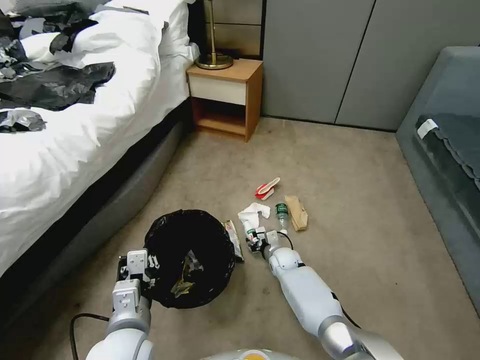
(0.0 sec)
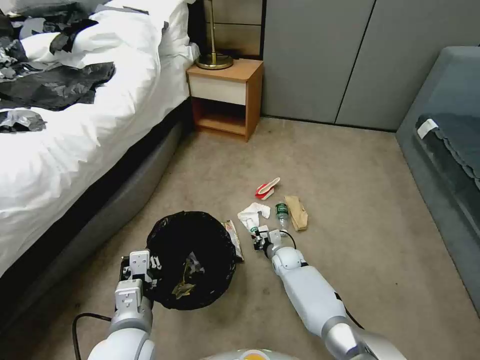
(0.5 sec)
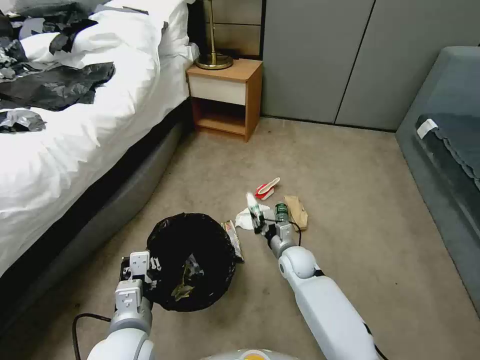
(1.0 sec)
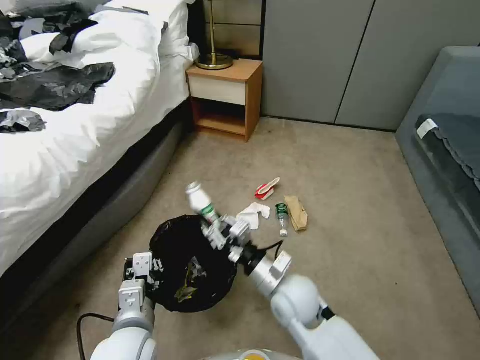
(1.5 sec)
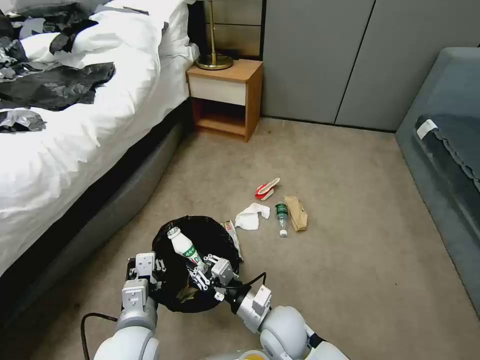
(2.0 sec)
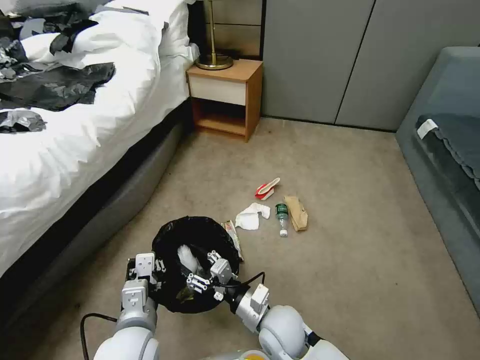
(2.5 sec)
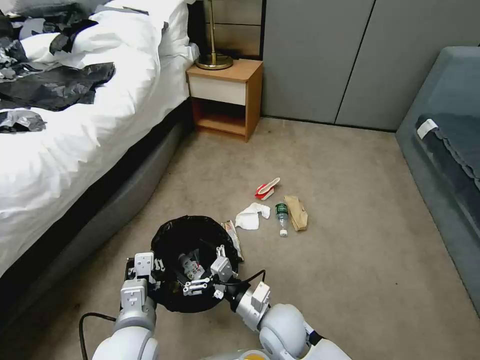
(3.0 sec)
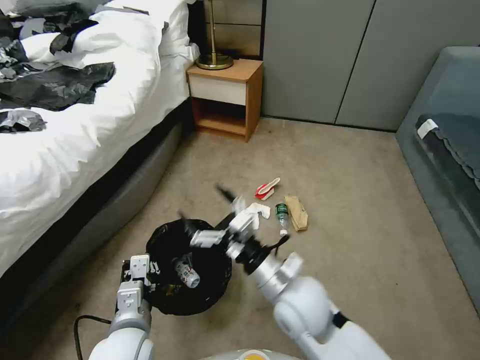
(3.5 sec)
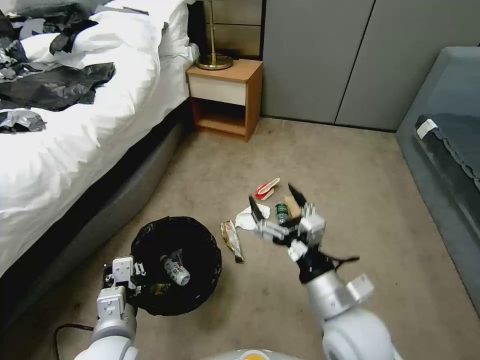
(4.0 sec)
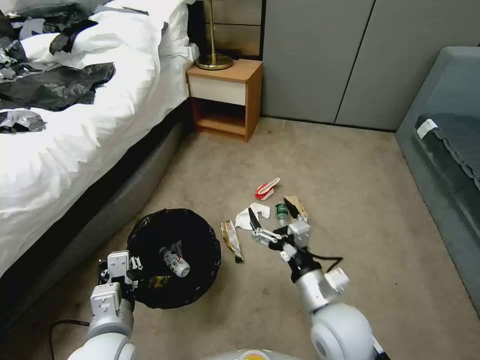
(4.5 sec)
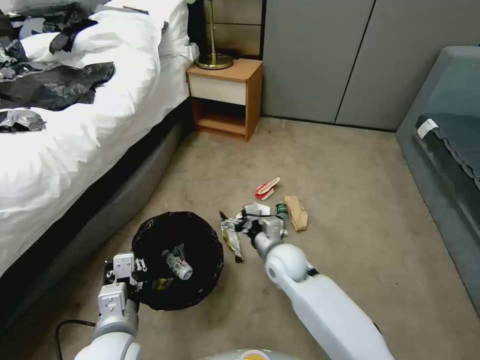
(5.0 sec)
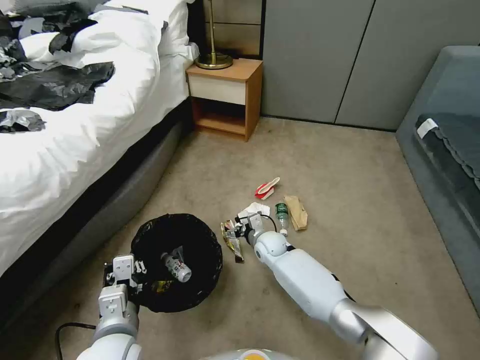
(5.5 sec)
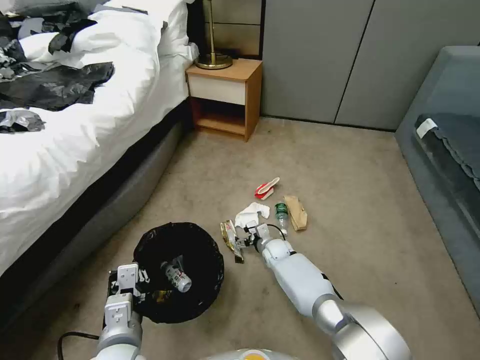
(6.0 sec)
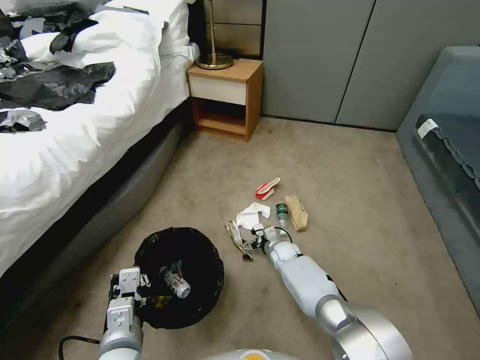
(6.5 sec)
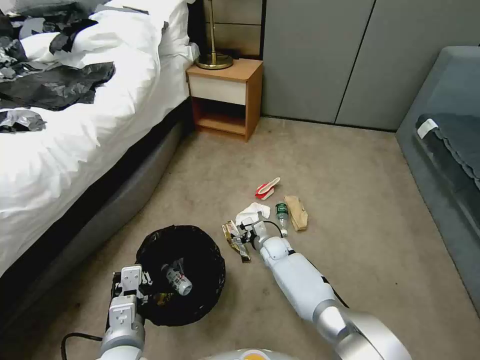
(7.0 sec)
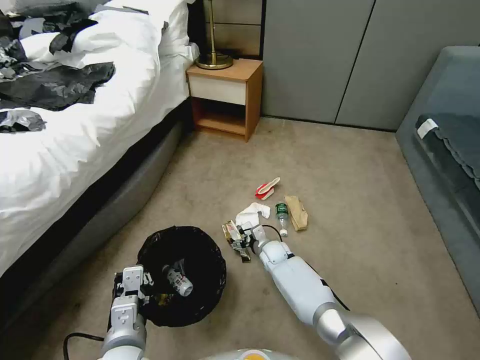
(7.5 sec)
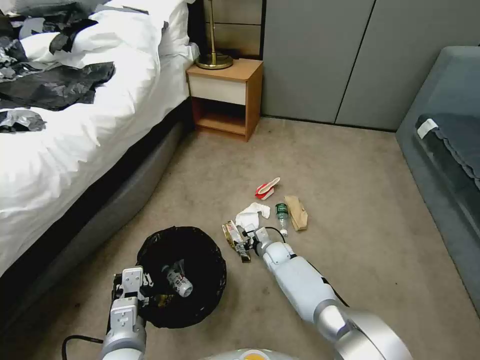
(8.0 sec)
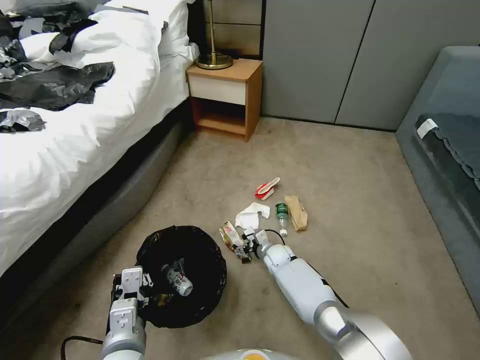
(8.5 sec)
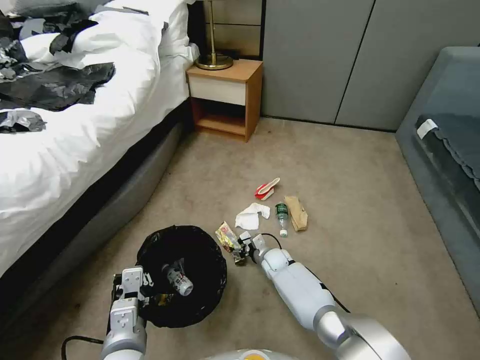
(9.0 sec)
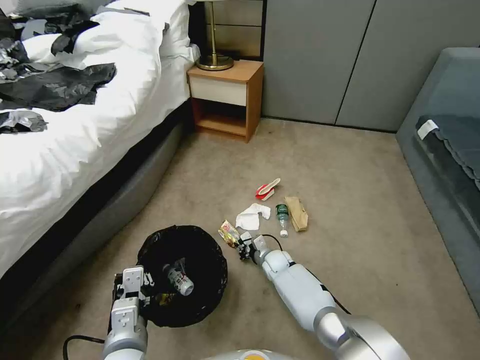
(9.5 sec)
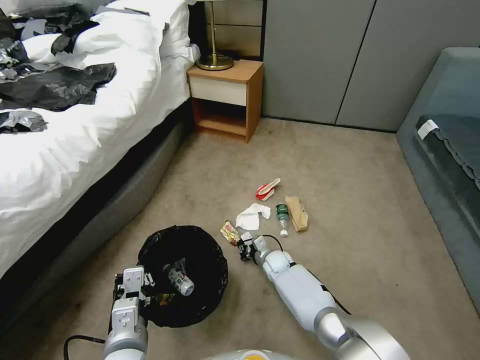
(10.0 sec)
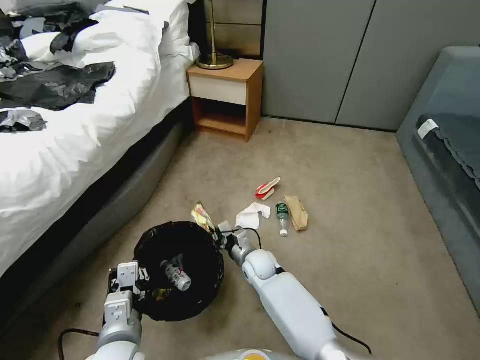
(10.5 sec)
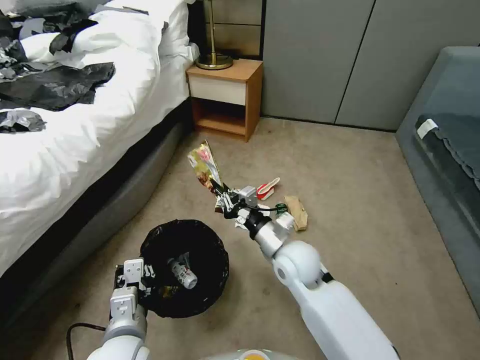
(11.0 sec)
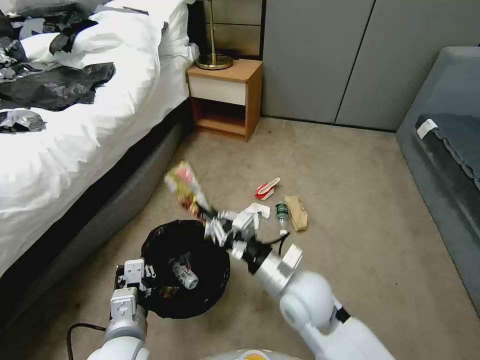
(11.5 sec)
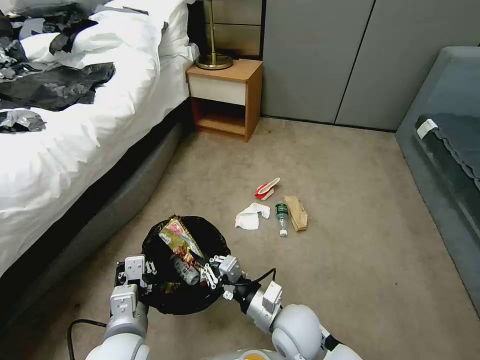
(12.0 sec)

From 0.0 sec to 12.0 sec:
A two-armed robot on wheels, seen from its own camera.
Task of the whole recording: Pick up the trash bin, then pick up the garbage from the floor and place it into the trash bin.
From 0.0 sec to 2.0 sec: The right gripper heads backward and upward, covering about 25 cm, and closes up.
From 2.0 sec to 4.0 sec: The right gripper moves upward and to the right, some 15 cm, and opens its fingers.
From 4.0 sec to 6.0 sec: The right gripper heads forward and downward, covering about 40 cm.
From 6.0 sec to 8.0 sec: The grippers move only a little.
From 8.0 sec to 10.0 sec: The right gripper closes.
From 10.0 sec to 12.0 sec: The right gripper goes approximately 30 cm backward and upward.

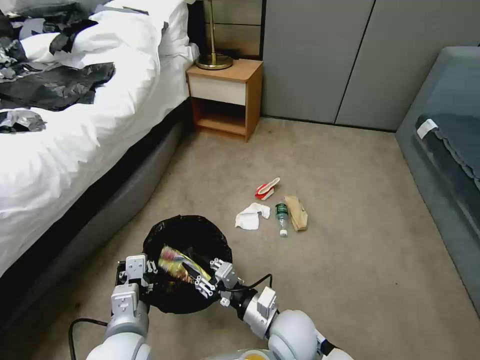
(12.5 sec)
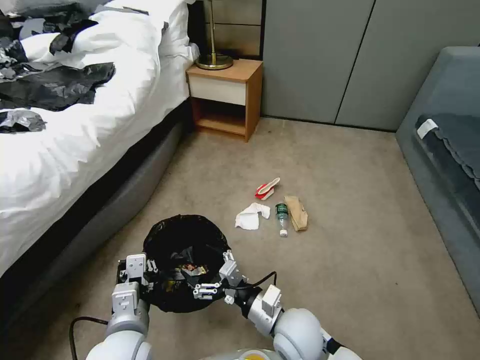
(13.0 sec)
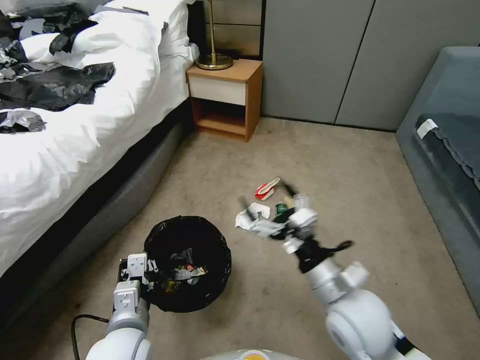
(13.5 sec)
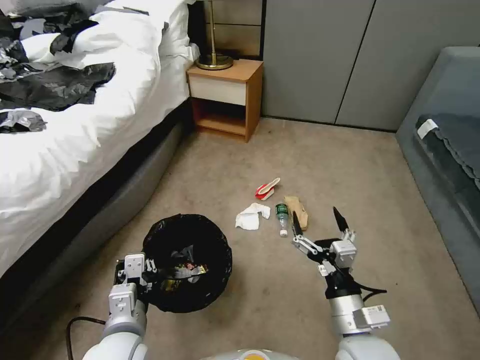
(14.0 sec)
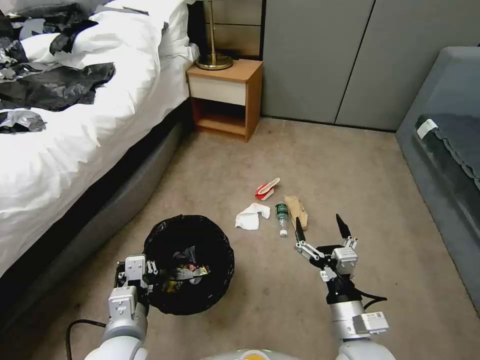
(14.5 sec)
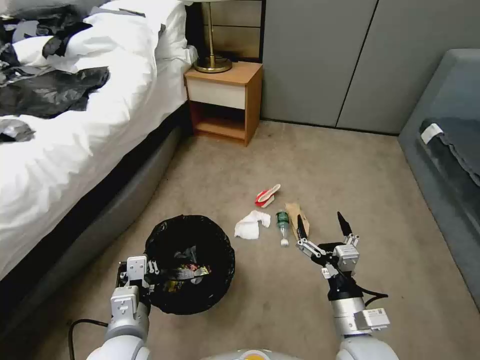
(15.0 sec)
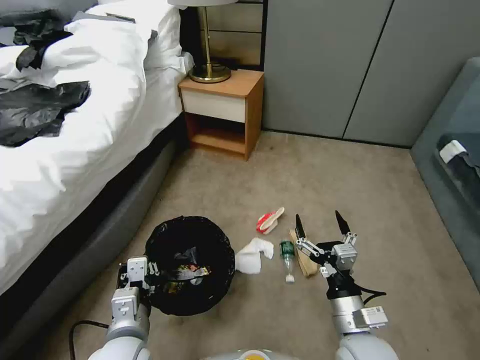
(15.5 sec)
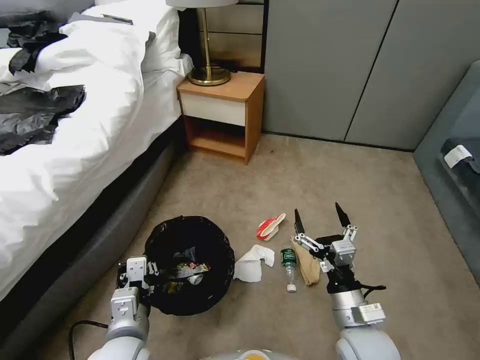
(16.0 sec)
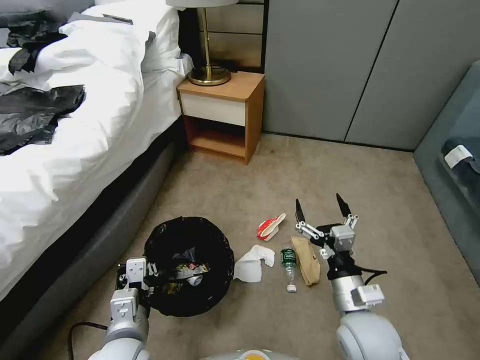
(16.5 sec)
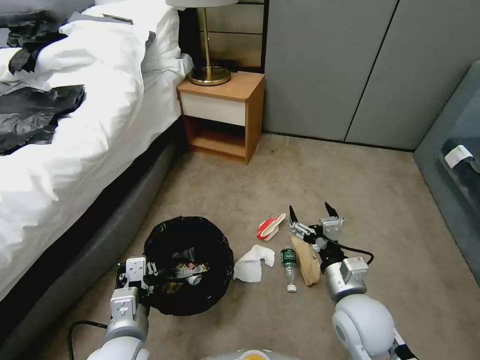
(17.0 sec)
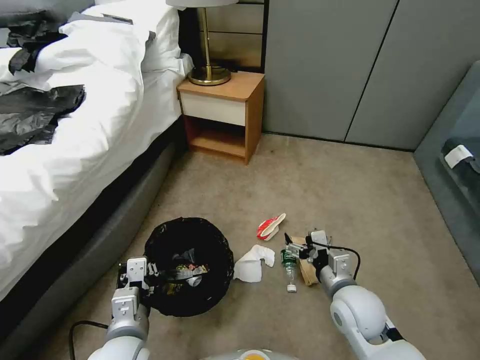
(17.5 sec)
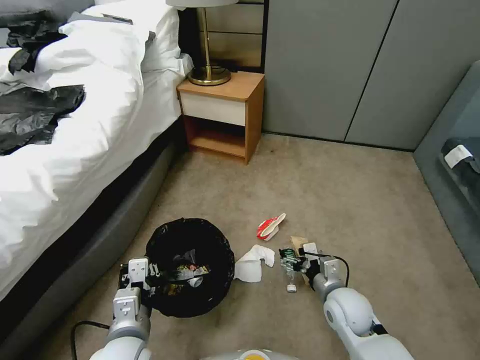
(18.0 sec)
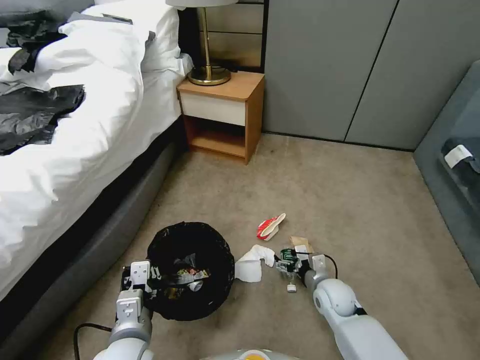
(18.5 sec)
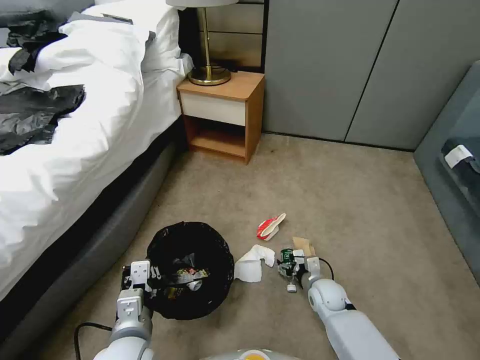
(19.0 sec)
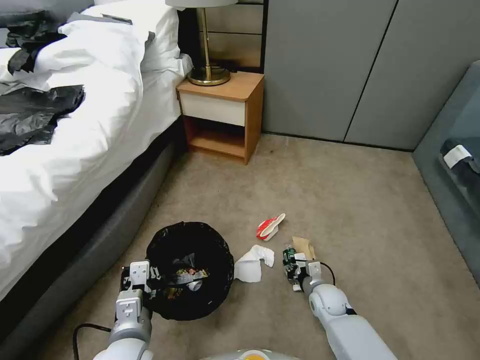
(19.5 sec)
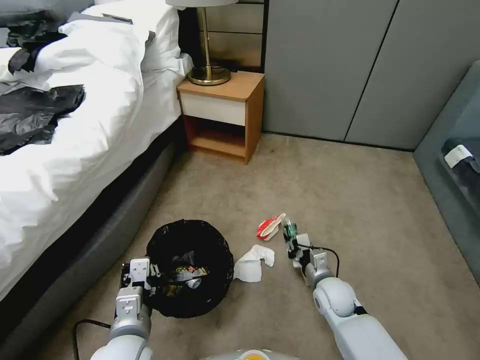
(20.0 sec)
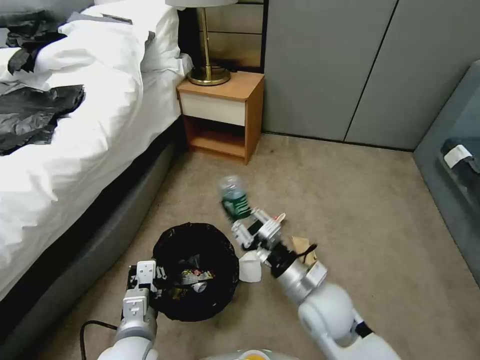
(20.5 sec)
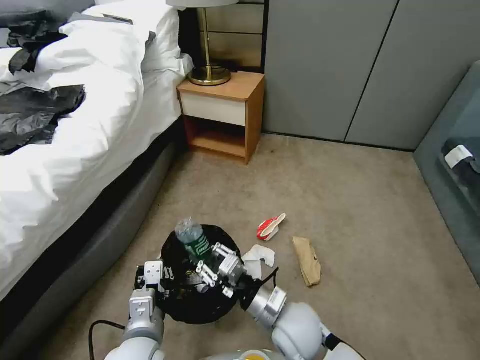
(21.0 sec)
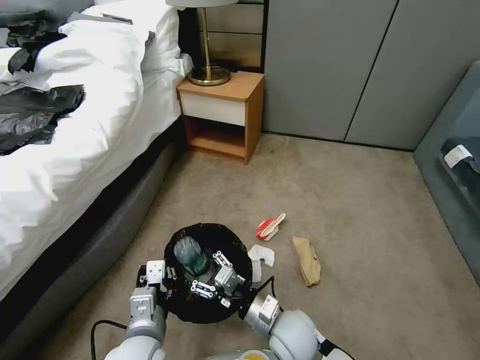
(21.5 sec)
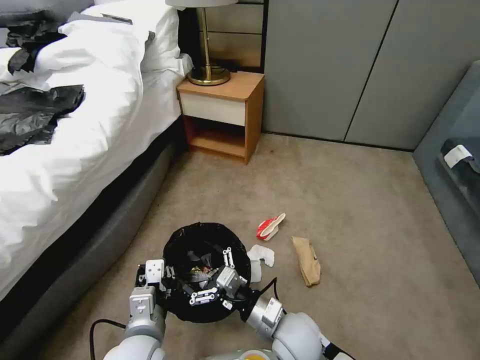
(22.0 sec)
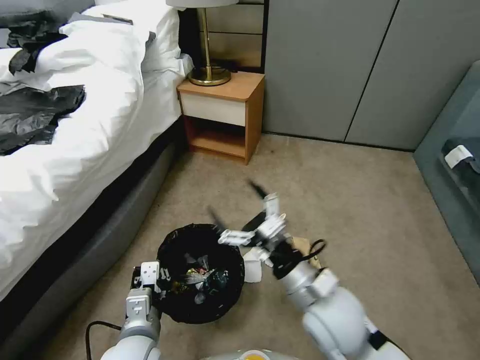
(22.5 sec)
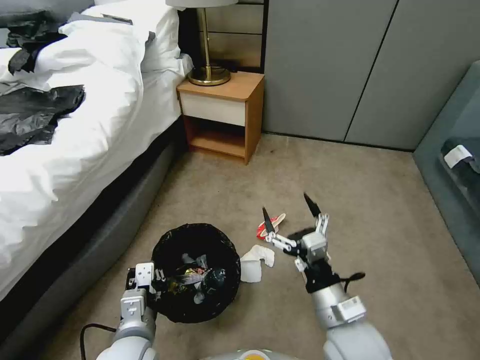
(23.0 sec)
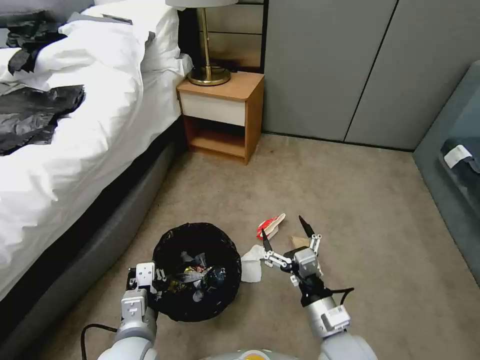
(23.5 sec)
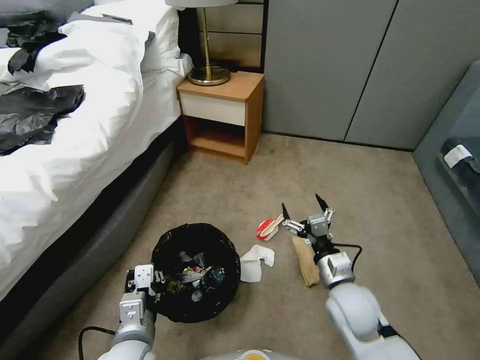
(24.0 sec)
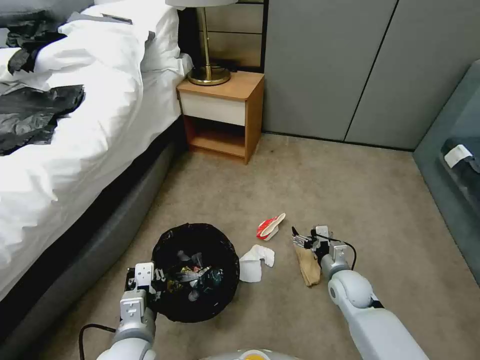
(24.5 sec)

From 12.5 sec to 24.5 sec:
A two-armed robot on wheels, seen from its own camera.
Task of the whole recording: Pick up the trash bin, then pick up the garbage from the floor and place it into the trash bin.
From 12.5 sec to 14.5 sec: The right gripper moves to the right and backward, approximately 15 cm, and opens up.
From 16.5 sec to 18.5 sec: The right gripper shifts approximately 20 cm downward and forward.
From 18.5 sec to 20.5 sec: The right gripper is displaced upward, to the left and backward by roughly 20 cm, and closes.
From 20.5 sec to 22.5 sec: The right gripper heads upward, covering approximately 5 cm, and opens up.
From 22.5 sec to 24.5 sec: The right gripper heads downward, to the right and forward, covering about 25 cm.

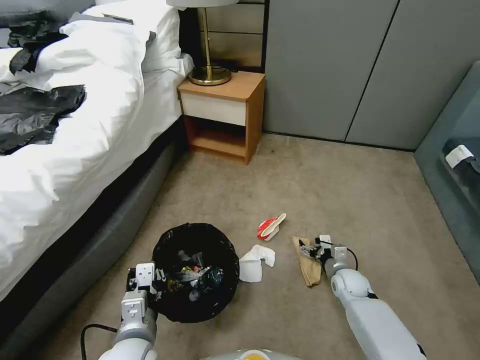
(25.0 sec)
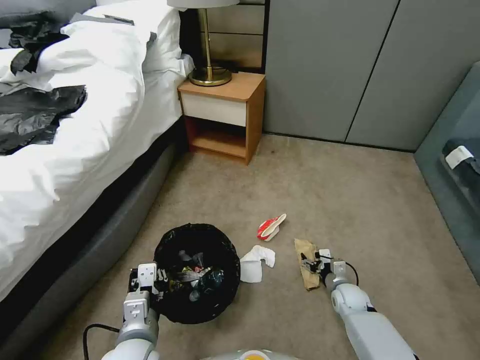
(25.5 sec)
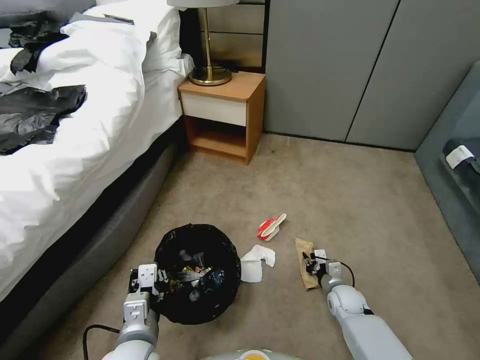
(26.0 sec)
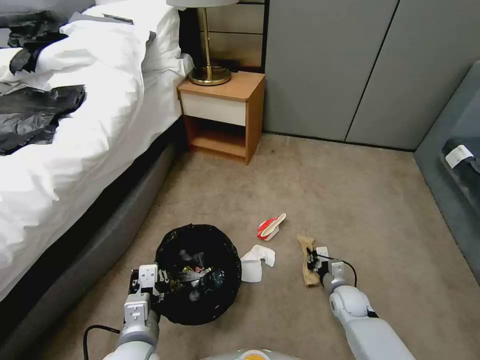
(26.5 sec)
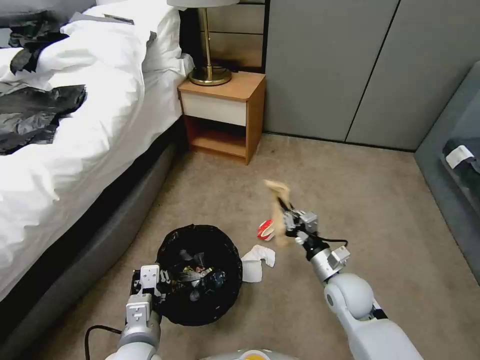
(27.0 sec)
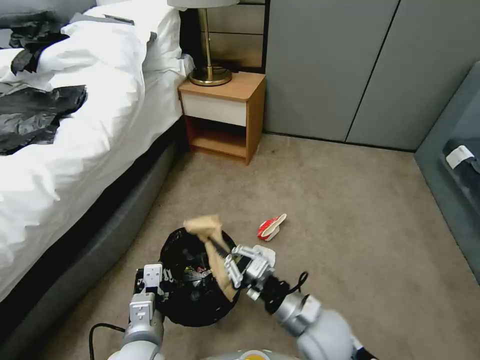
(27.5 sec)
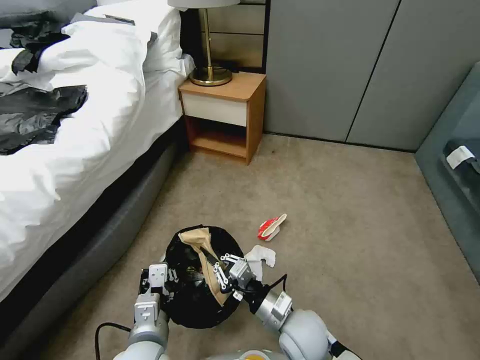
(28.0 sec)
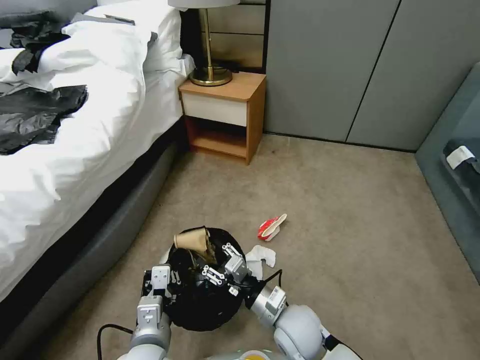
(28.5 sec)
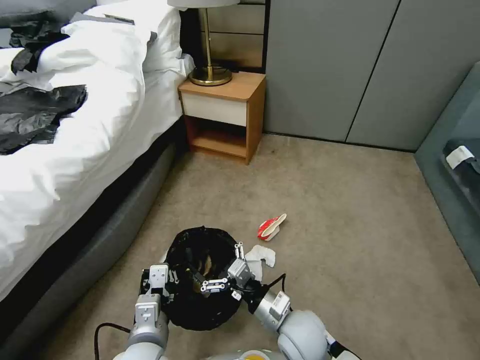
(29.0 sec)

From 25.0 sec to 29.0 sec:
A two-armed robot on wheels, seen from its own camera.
Task of the whole recording: Pick up the trash bin, then pick up the garbage from the floor and place it into the trash bin.
From 25.0 sec to 27.0 sec: The right gripper goes roughly 20 cm upward, to the left and backward, and closes.
From 27.0 sec to 29.0 sec: The right gripper goes about 15 cm to the left and backward, and opens up.
